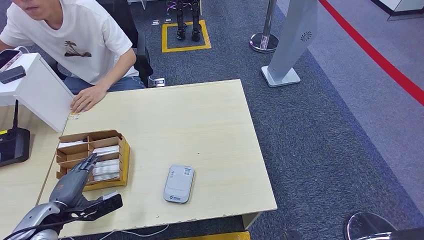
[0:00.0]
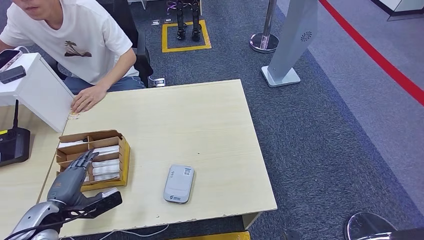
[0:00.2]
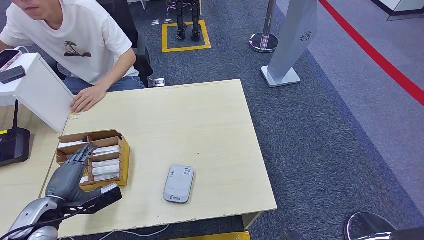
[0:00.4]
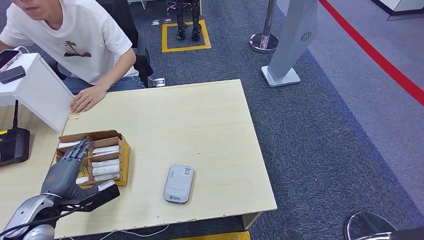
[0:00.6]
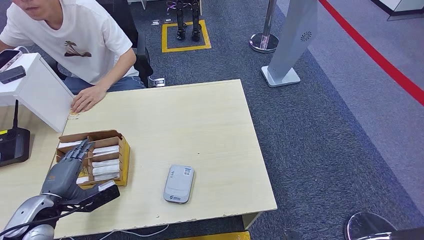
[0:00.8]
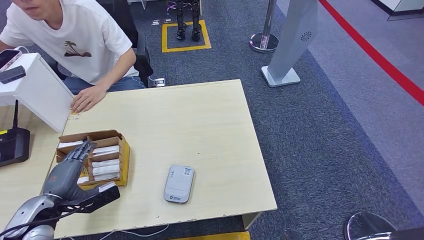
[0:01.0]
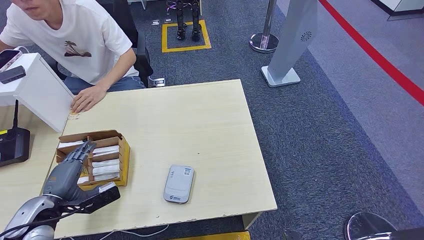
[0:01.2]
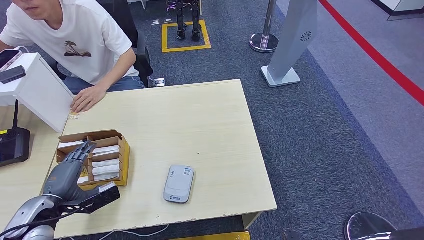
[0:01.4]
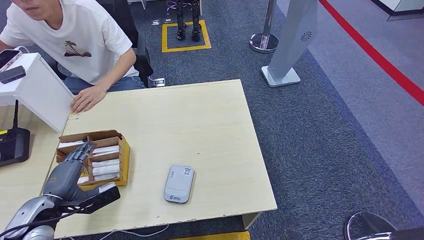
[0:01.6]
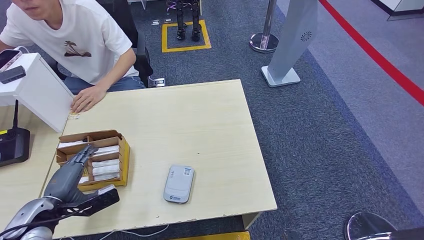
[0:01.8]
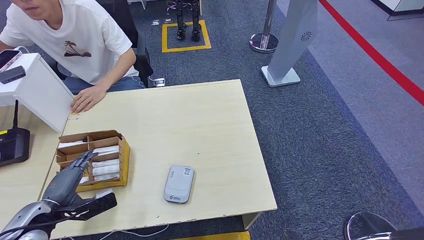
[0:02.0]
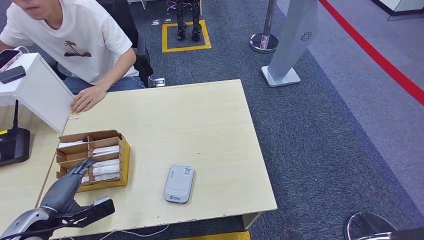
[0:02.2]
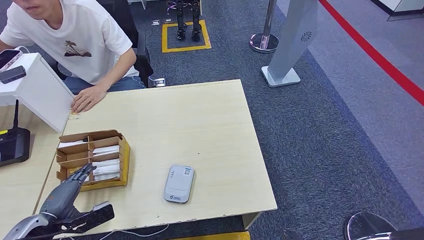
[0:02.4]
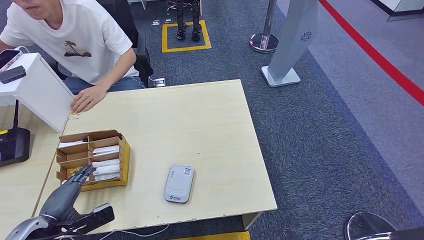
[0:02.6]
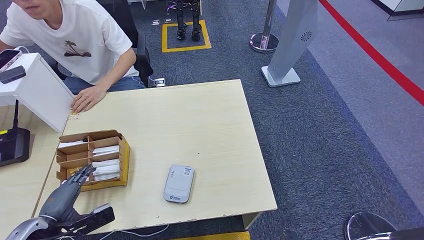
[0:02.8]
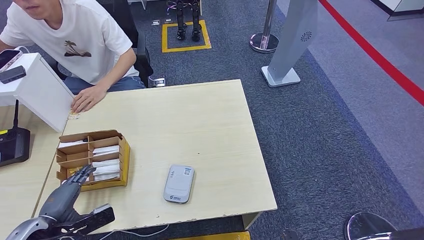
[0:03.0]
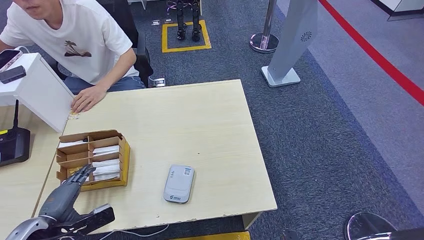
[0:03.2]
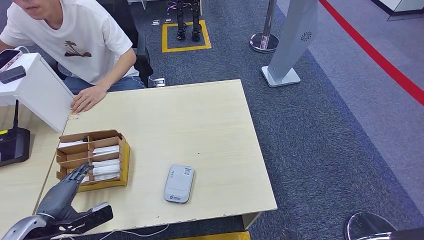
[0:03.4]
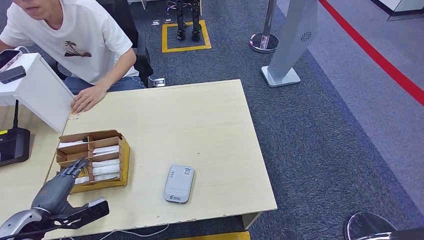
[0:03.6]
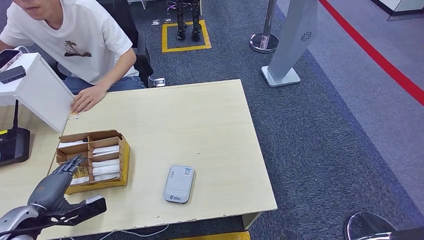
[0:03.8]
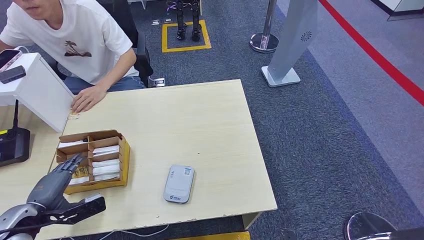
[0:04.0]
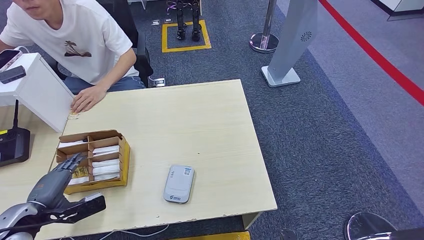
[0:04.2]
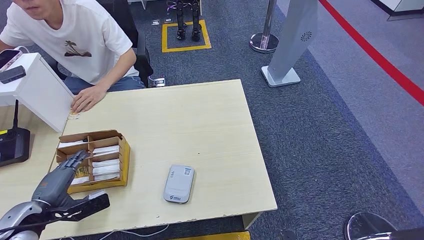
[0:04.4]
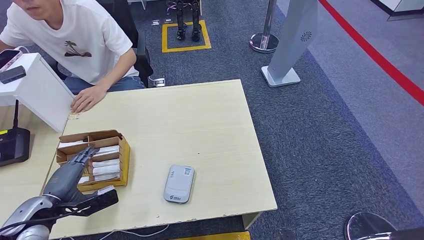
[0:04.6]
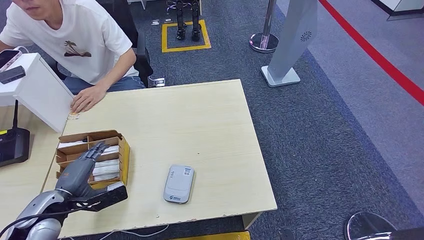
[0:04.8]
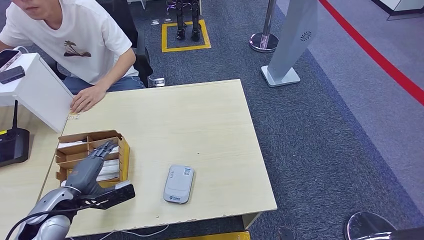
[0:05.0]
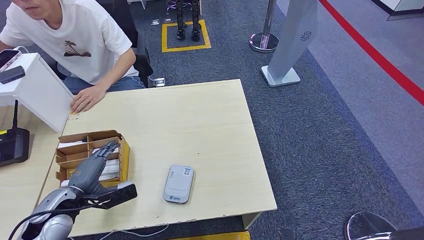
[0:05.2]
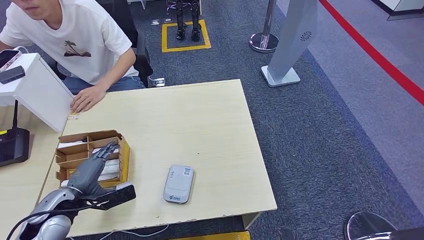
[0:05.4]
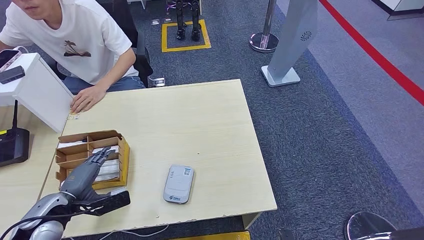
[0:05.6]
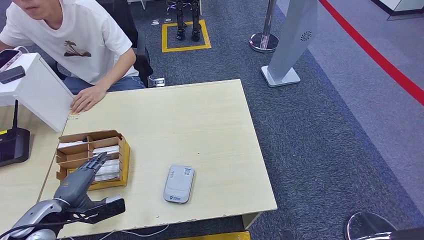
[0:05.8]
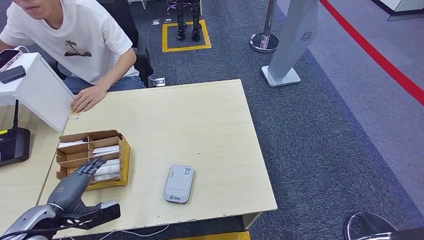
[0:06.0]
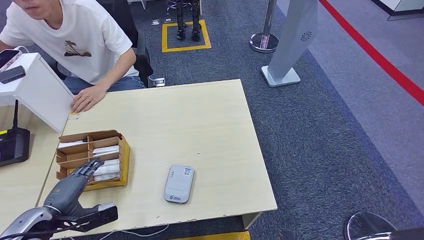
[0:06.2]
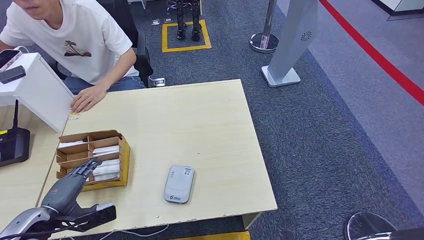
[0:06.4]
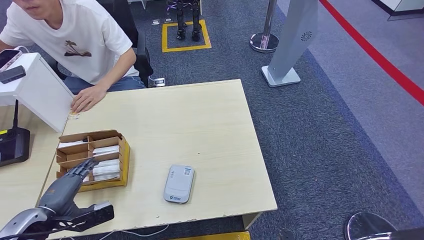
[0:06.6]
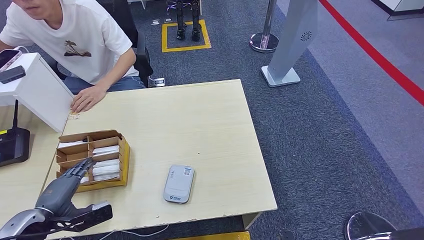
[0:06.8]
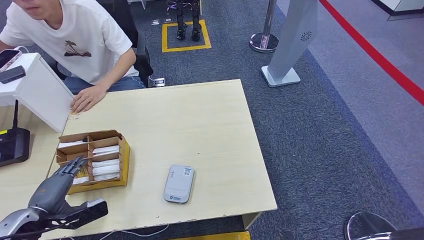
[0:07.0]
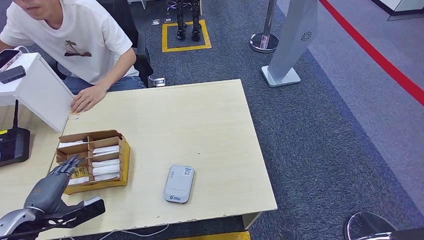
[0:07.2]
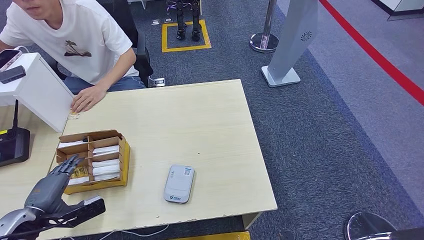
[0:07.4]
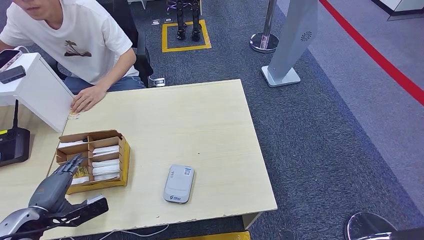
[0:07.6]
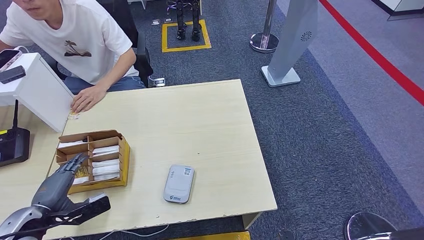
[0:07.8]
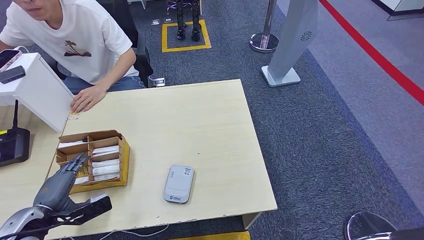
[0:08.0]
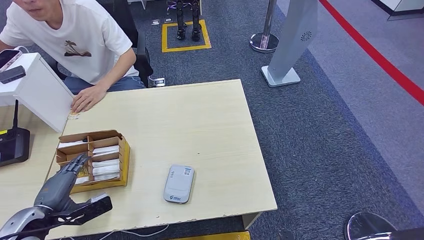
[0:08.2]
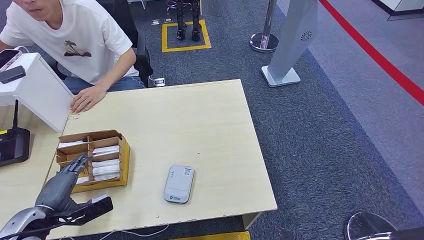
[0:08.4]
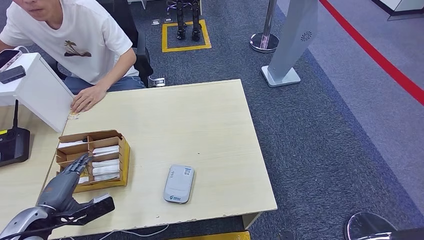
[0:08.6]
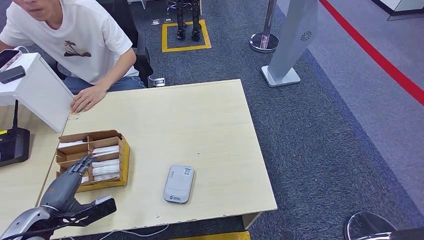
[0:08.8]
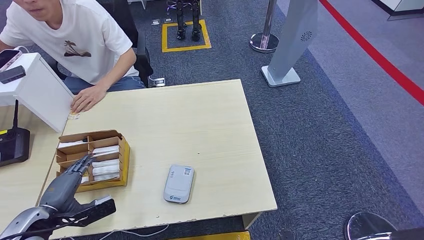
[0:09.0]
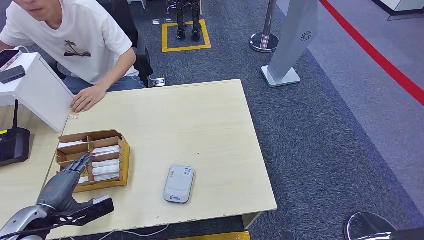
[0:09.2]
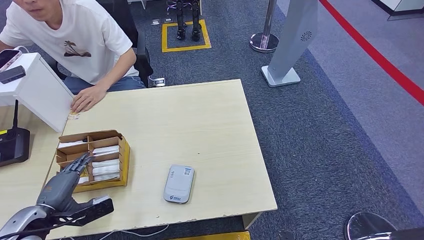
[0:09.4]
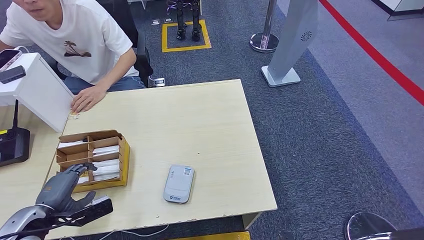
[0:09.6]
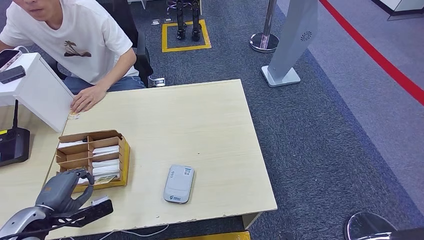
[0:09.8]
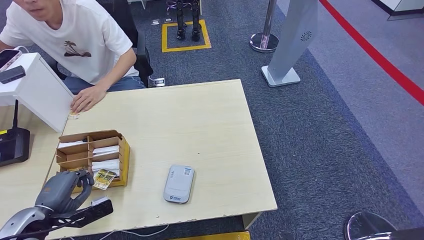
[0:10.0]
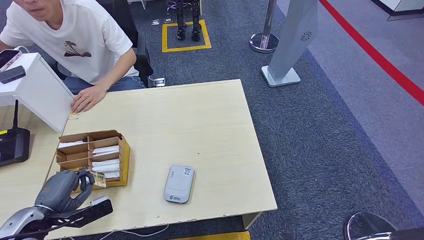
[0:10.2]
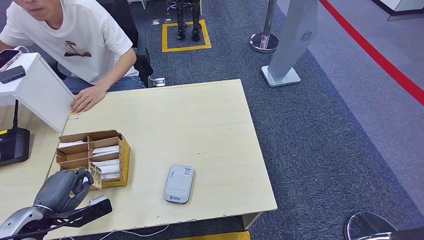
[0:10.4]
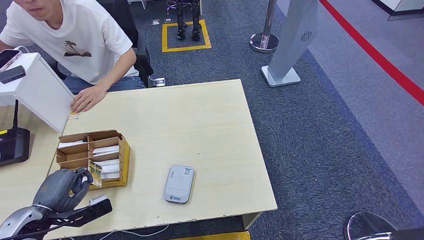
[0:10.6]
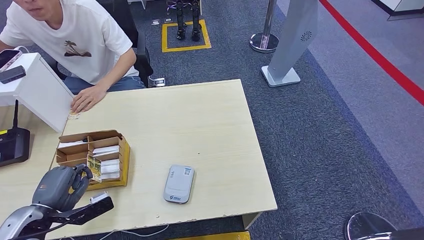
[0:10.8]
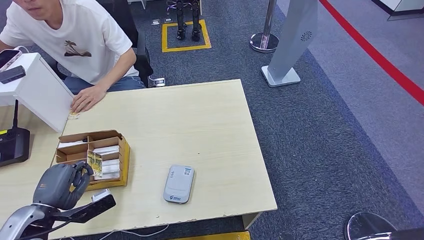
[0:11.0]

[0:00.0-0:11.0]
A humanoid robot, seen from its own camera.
0:00.0 to 0:03.2: There are only small adjustments of the hands.
0:03.2 to 0:04.8: The left hand travels forward by about 5 cm.
0:04.8 to 0:07.8: The hands make only small movements.
0:07.8 to 0:09.4: The two hands keep their place.
0:09.4 to 0:11.0: The hands move only a little.

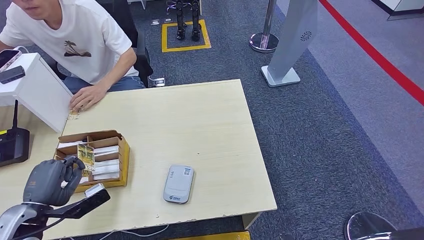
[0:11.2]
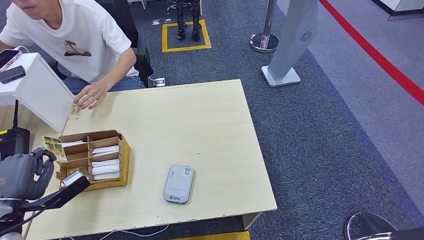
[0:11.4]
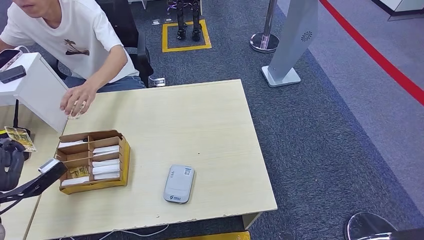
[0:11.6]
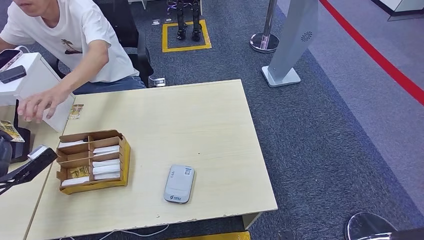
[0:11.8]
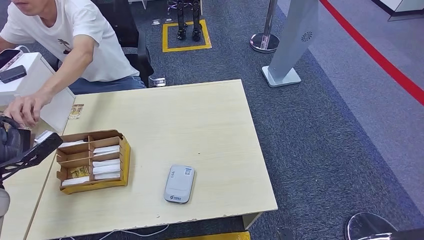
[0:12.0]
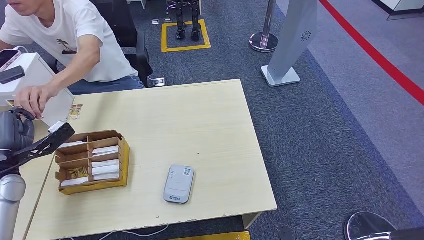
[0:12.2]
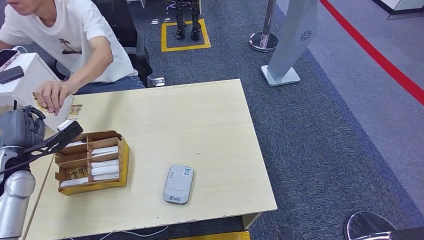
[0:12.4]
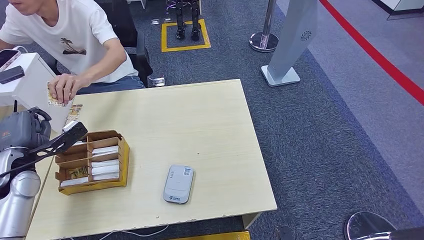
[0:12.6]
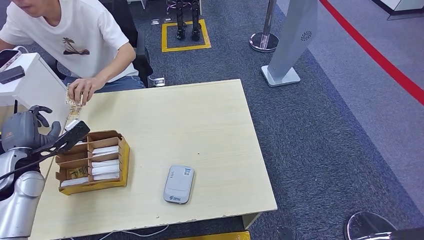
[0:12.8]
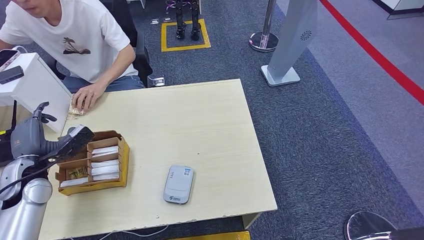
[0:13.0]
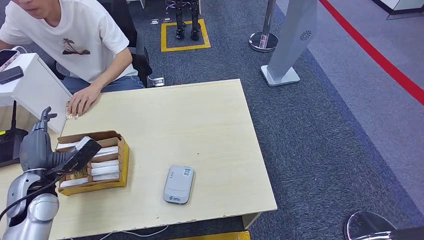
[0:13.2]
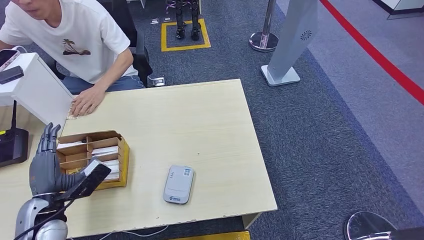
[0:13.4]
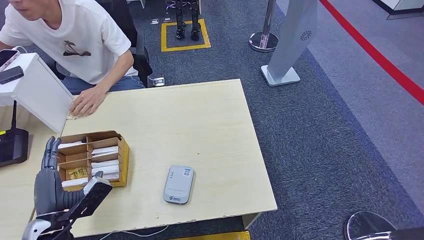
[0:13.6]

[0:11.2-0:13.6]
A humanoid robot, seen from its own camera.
Step, 0:11.4 to 0:13.6: Hand the room key to the person.
0:11.2 to 0:12.4: The left hand is displaced forward and to the left by some 15 cm.
0:12.4 to 0:13.6: The left hand is displaced backward, to the right and downward by some 20 cm.
